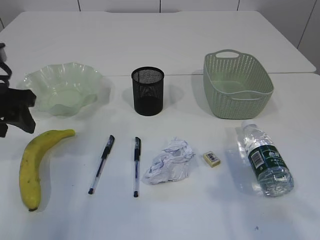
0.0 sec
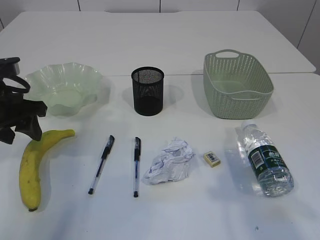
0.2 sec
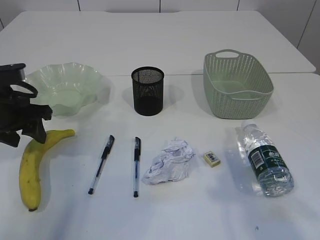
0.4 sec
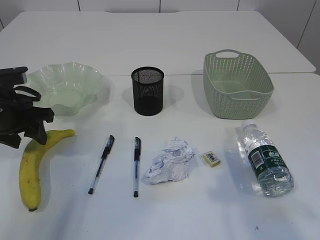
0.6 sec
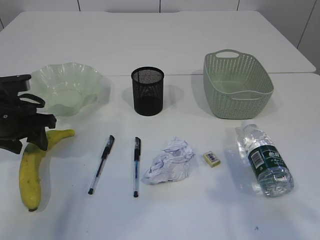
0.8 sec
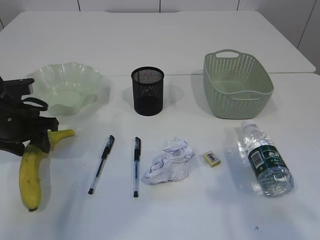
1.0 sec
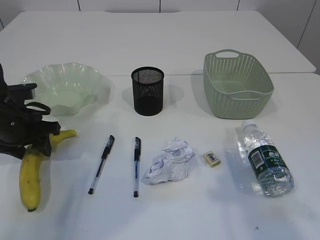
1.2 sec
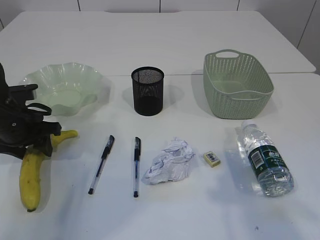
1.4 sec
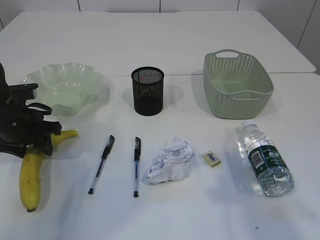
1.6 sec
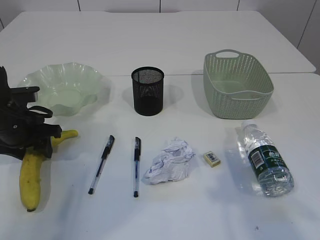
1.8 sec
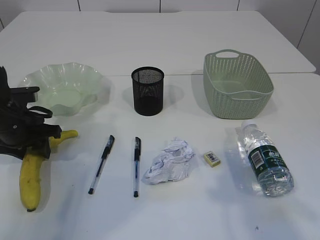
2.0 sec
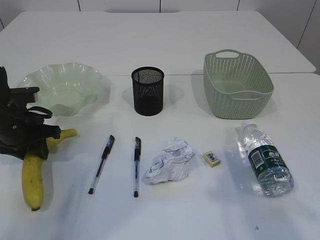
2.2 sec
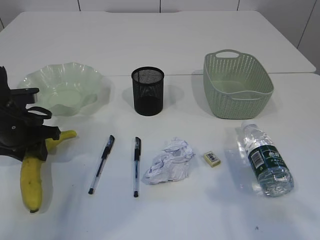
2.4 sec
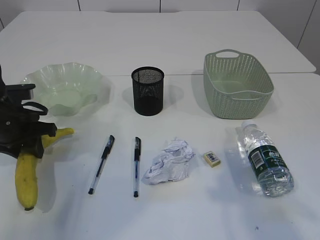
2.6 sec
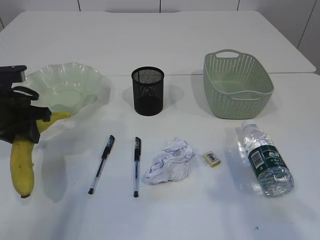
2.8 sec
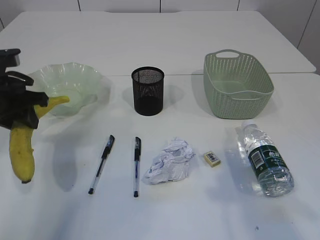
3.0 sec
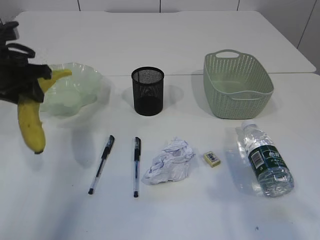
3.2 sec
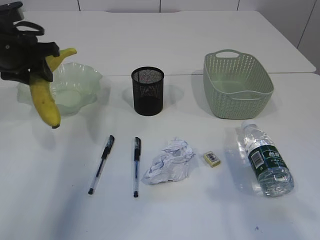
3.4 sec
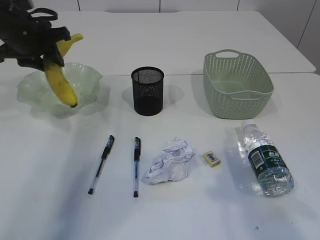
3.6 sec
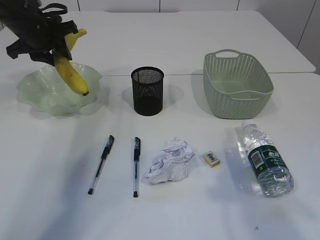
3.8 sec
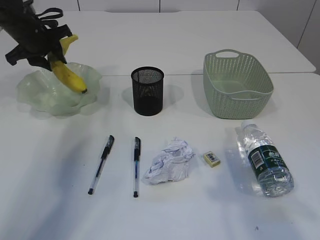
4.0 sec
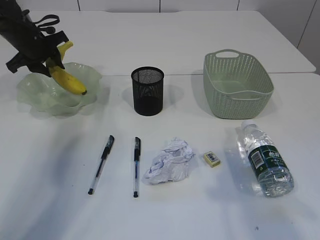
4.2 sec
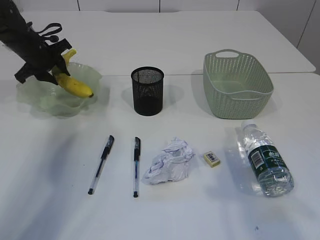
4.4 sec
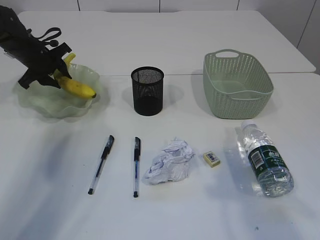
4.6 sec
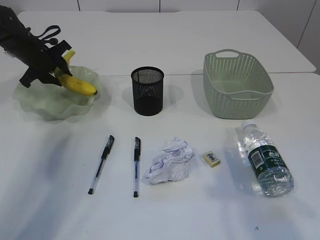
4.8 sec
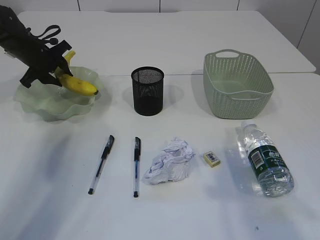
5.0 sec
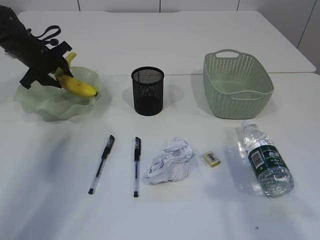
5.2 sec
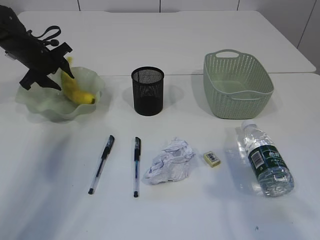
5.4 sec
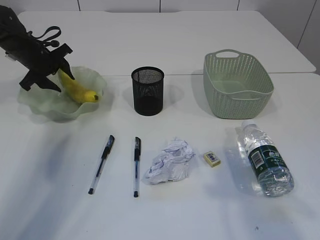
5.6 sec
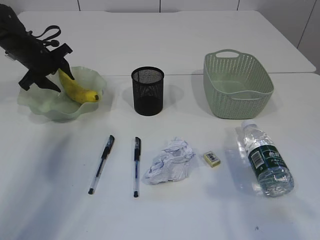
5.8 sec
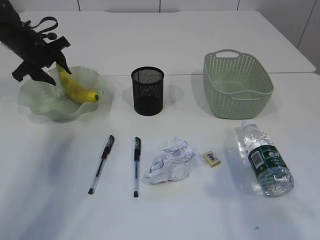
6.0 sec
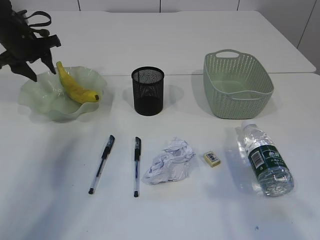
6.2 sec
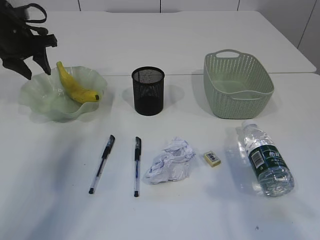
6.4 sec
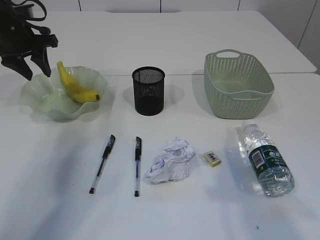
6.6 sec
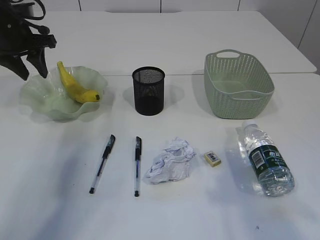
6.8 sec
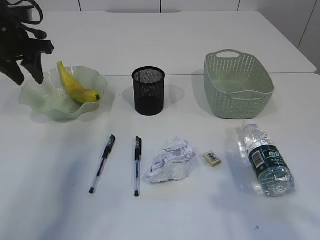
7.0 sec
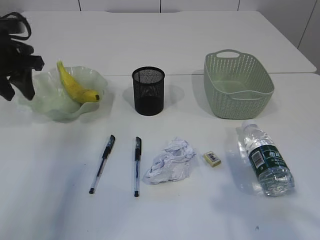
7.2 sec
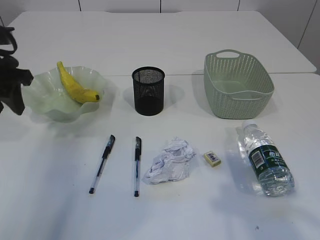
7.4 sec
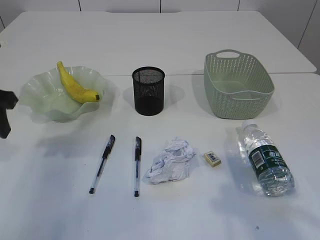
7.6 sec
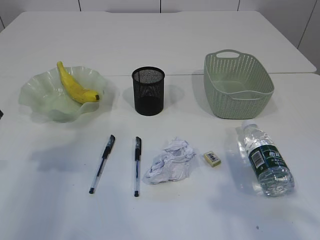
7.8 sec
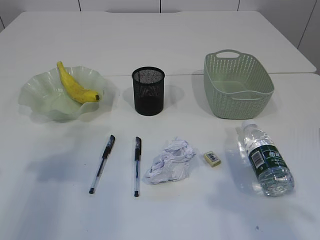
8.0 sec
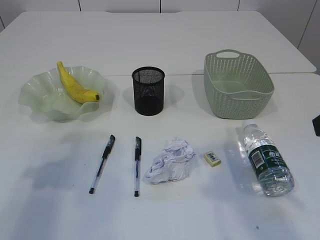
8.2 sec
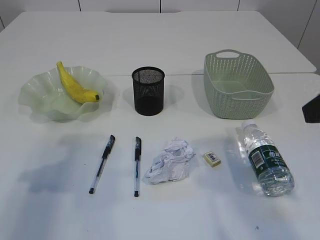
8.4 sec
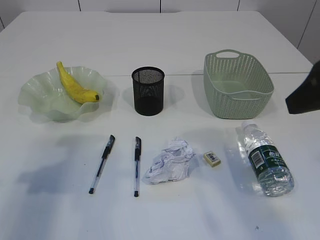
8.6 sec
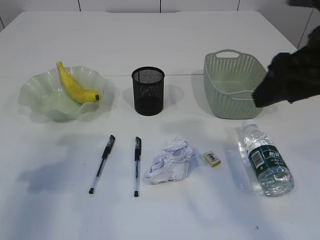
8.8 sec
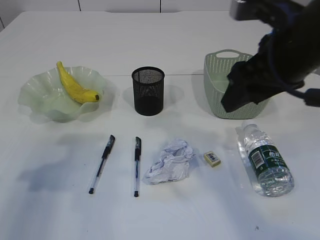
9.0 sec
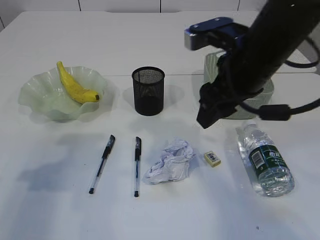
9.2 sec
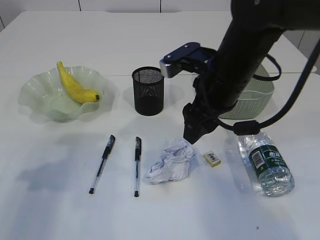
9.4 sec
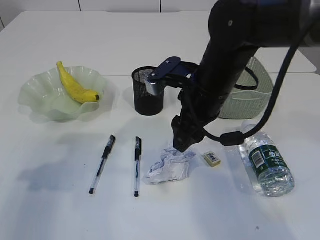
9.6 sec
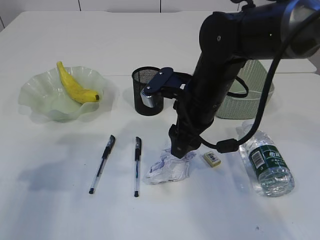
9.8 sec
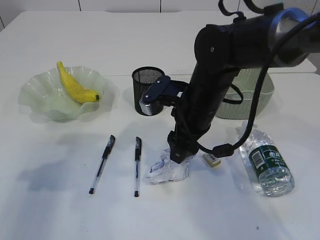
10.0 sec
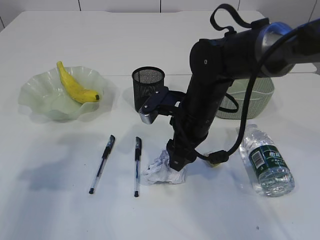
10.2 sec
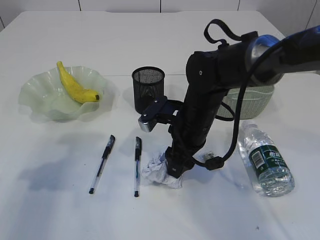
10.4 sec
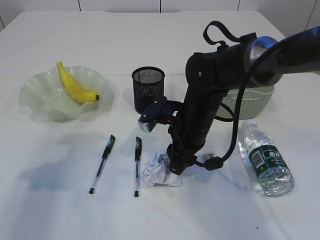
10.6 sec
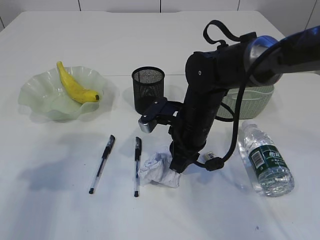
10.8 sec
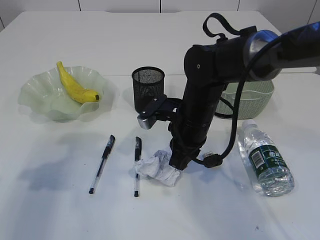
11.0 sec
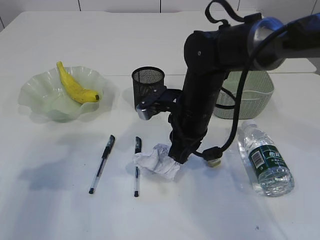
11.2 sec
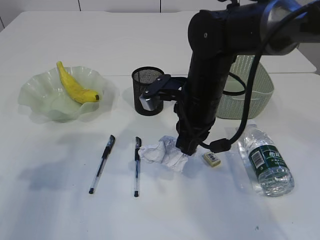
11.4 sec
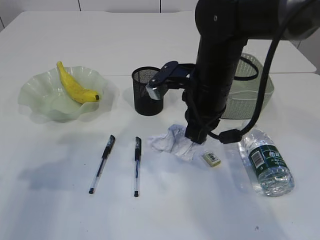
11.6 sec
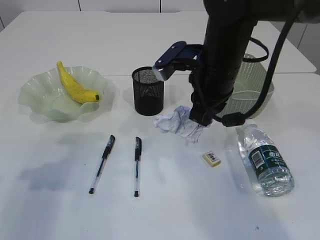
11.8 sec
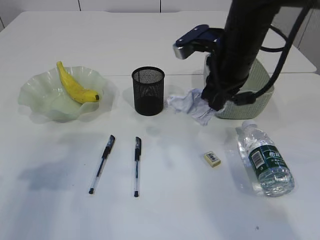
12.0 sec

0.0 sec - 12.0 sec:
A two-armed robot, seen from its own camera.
Step, 3.0 sec - 6.2 sec: Place the banana in the plate.
Step, 6.4 sec - 11.6 sec: Pick up the waste paper.
0.0 sec - 1.6 sec: The left gripper moves downward, some 10 cm.
1.6 sec - 3.0 sec: The left gripper moves upward, approximately 5 cm.
3.0 sec - 4.4 sec: The left gripper shifts about 20 cm forward.
4.4 sec - 6.0 sec: The grippers stay close to where they were, moving slightly.
6.0 sec - 7.6 sec: The left gripper moves backward, approximately 20 cm.
7.6 sec - 9.0 sec: The left gripper goes roughly 10 cm backward. The right gripper moves forward and to the left, roughly 15 cm.
9.0 sec - 10.4 sec: The right gripper is displaced downward, to the left and forward by approximately 20 cm.
10.4 sec - 12.0 sec: The right gripper moves upward and to the right, roughly 15 cm, and closes.

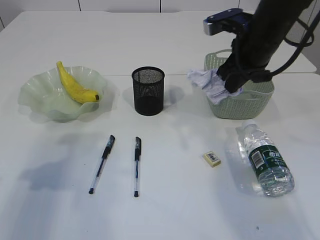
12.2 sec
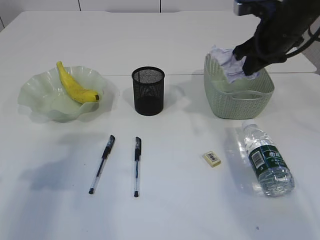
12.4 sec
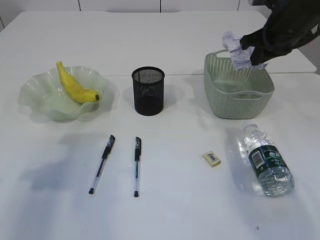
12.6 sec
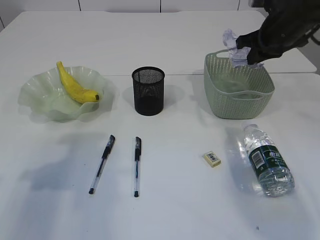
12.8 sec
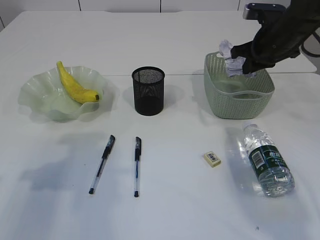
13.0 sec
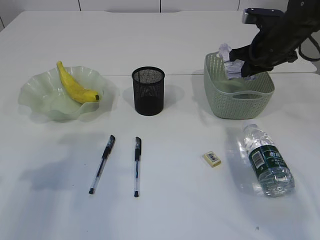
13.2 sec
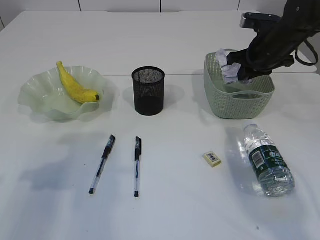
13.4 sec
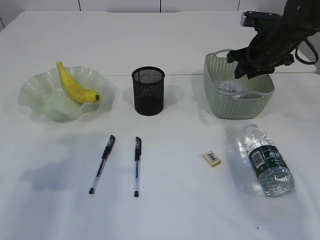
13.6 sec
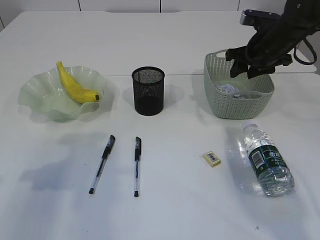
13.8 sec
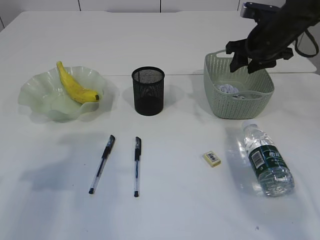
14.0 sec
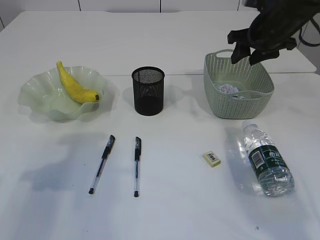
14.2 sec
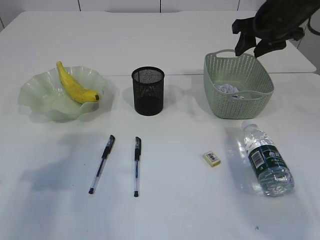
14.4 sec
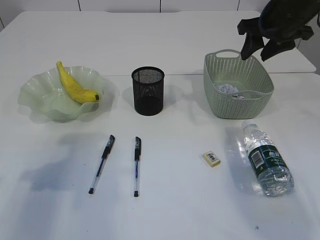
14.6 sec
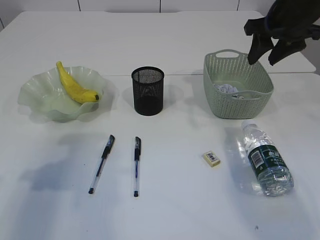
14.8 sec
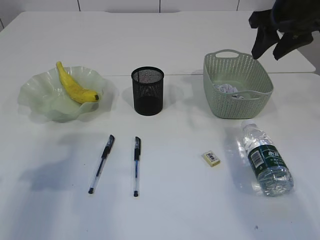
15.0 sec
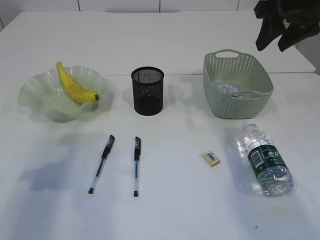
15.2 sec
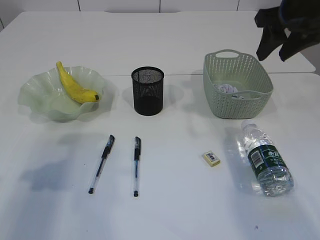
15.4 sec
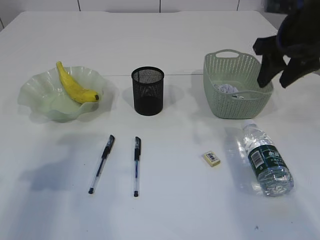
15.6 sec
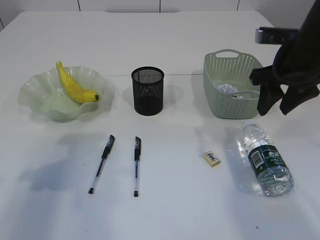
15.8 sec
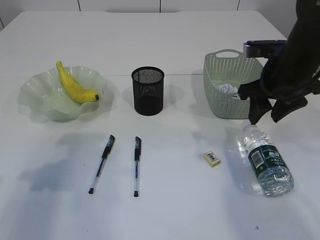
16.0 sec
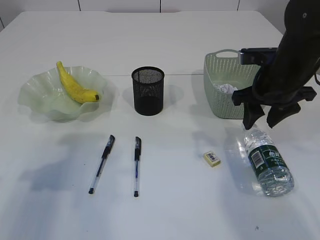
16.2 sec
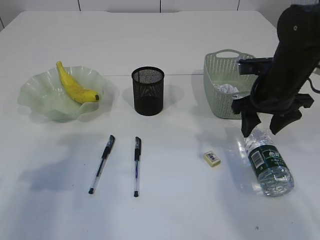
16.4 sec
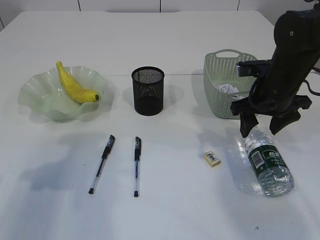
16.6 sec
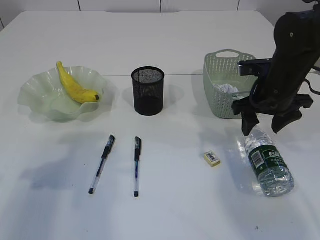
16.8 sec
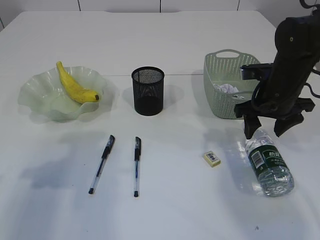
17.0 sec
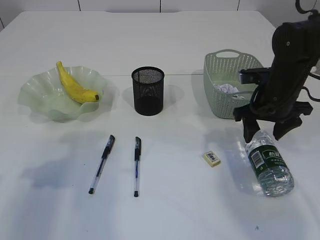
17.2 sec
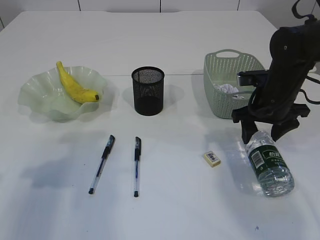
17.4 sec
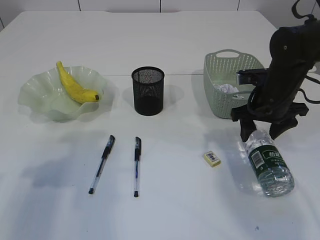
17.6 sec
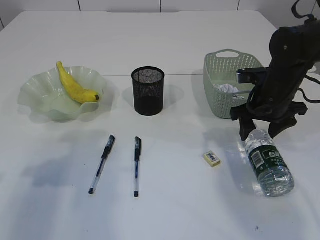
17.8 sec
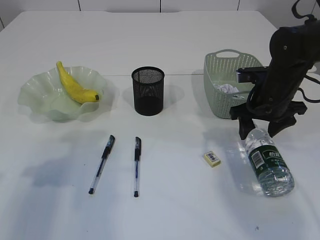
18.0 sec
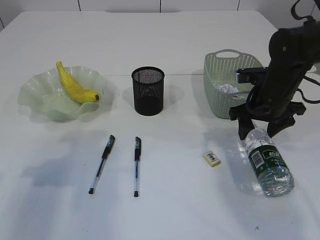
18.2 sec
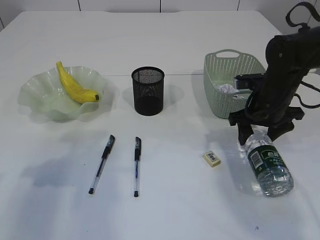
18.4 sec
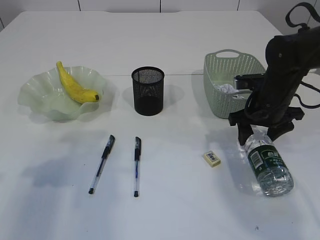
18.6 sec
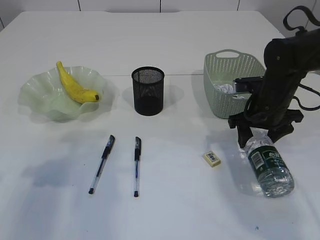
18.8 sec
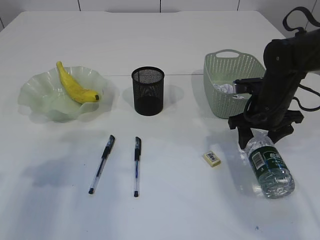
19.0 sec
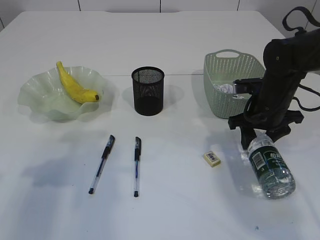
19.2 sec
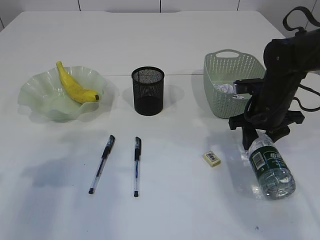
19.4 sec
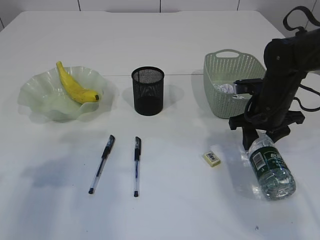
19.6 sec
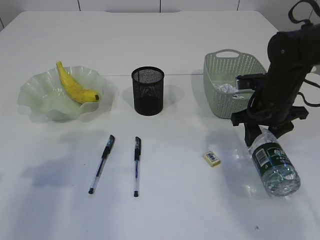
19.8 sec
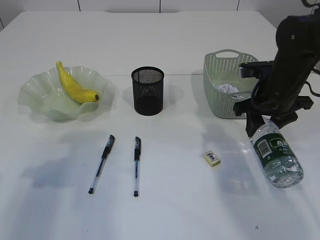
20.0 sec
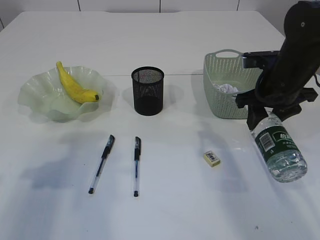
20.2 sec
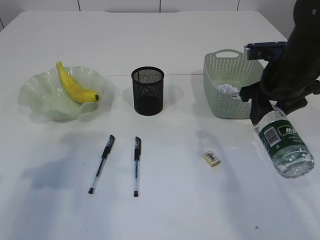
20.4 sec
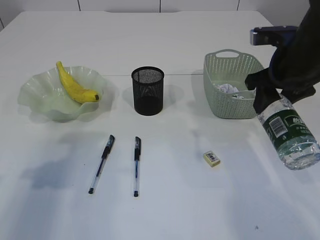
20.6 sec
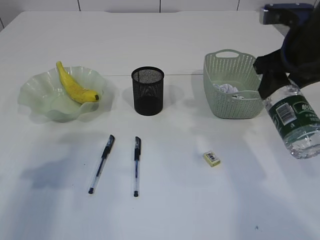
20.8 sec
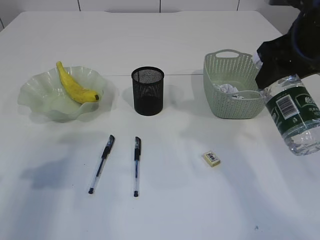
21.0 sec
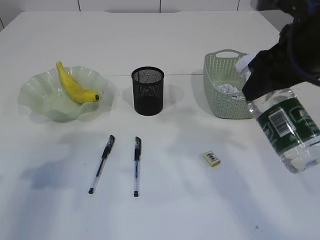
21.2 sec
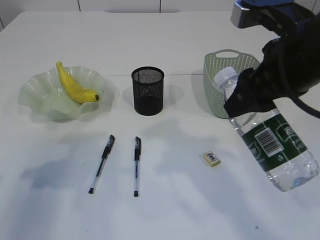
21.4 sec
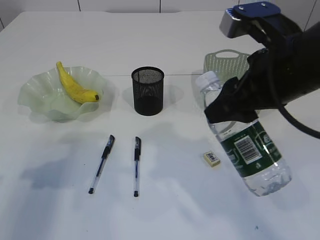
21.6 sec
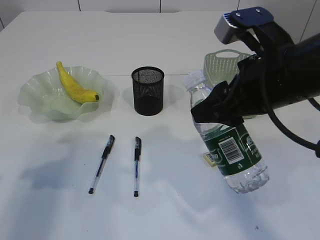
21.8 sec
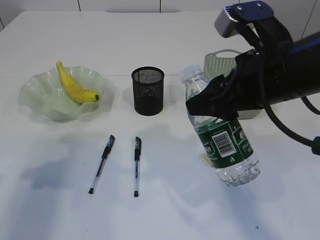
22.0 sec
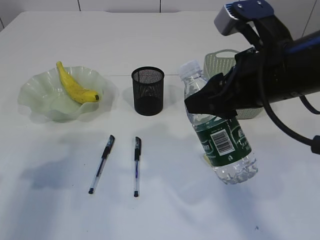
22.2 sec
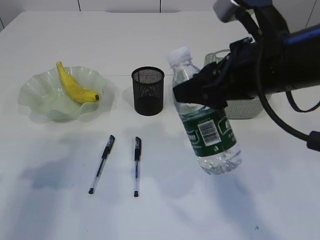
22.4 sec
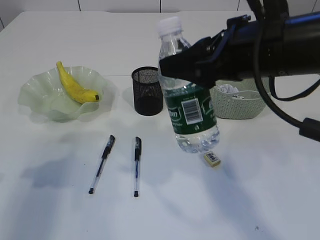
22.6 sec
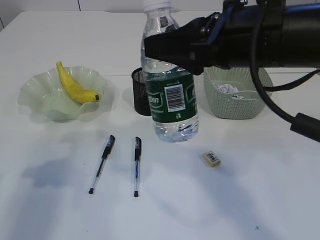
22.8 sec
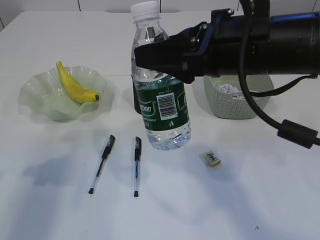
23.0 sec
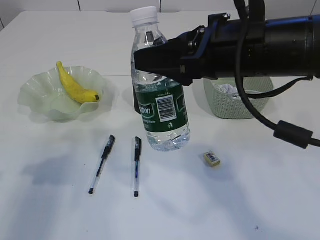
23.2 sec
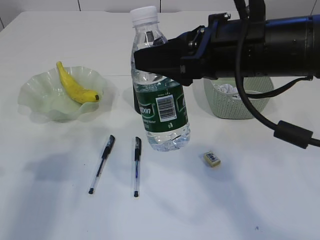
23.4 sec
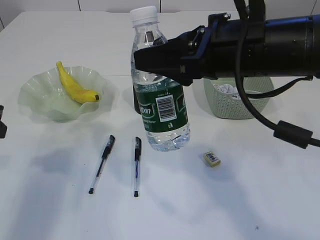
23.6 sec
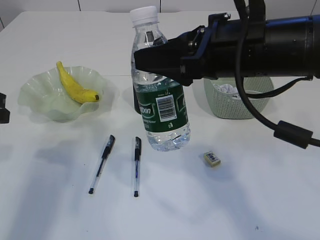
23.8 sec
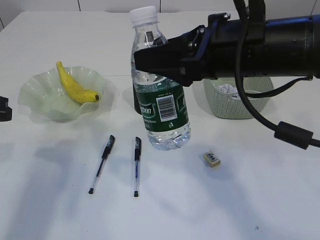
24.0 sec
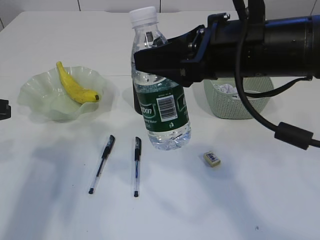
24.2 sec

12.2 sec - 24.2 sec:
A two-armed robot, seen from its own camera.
Step, 12.2 sec - 14.8 sec: Place the waste paper in the basket.
Step, 15.0 sec - 20.4 sec: Pick up the bottle with the right arm.
12.2 sec - 13.8 sec: The right gripper travels forward and to the right by some 10 cm, and opens up.
13.8 sec - 15.2 sec: The right gripper shifts roughly 15 cm upward and backward.
15.2 sec - 16.6 sec: The right gripper goes approximately 15 cm downward.
16.6 sec - 19.8 sec: The grippers stay close to where they were, moving slightly.
19.8 sec - 21.2 sec: The right gripper heads upward and backward, covering roughly 20 cm.
21.2 sec - 22.6 sec: The right gripper is displaced to the left by about 5 cm.
